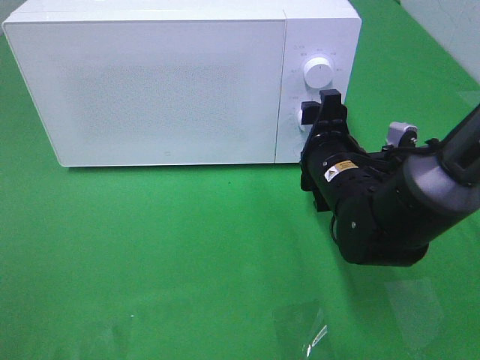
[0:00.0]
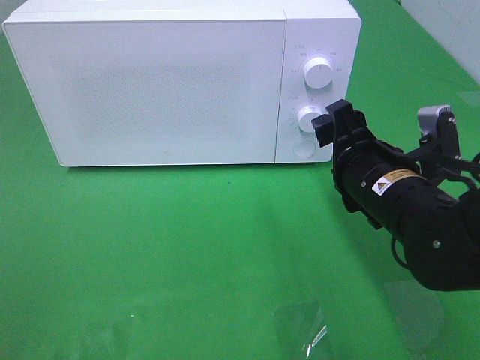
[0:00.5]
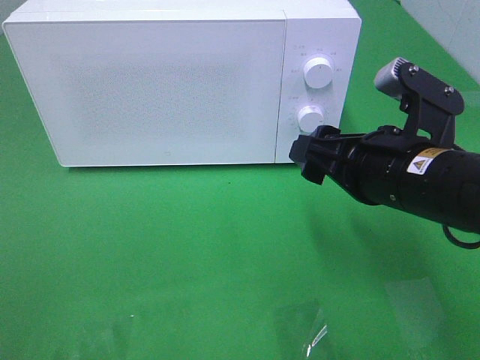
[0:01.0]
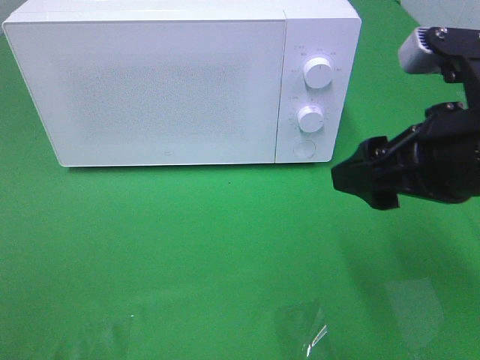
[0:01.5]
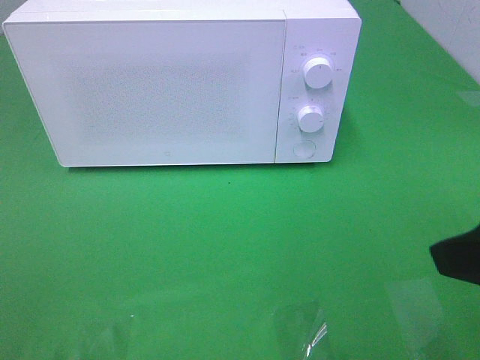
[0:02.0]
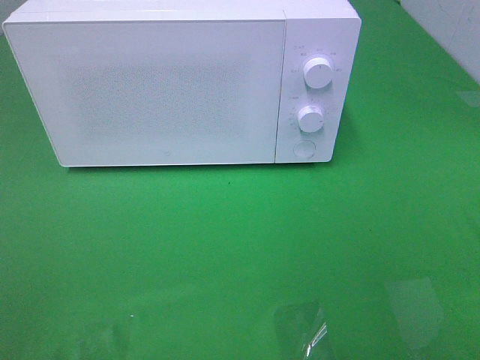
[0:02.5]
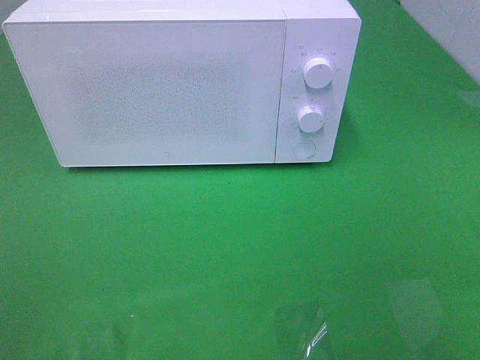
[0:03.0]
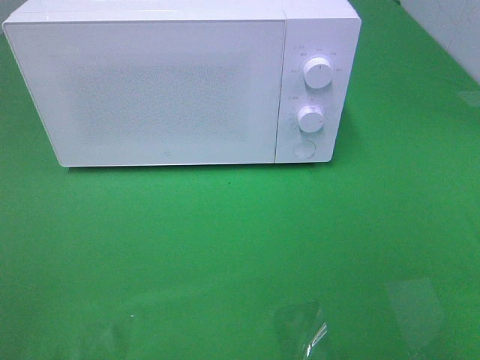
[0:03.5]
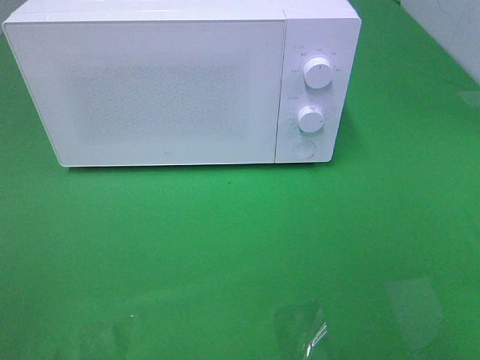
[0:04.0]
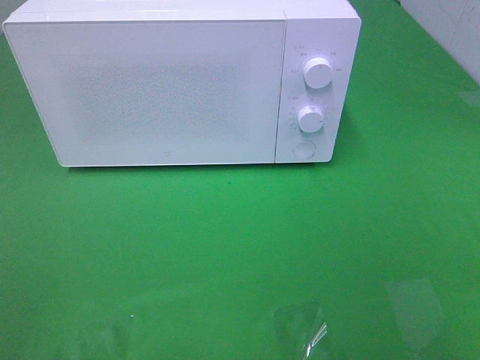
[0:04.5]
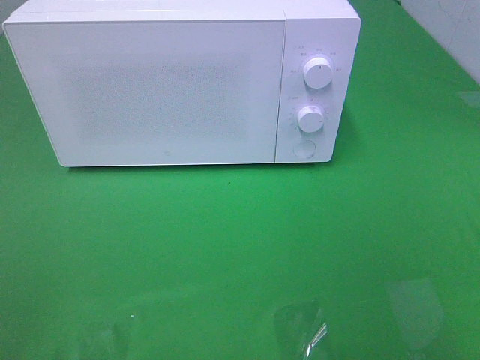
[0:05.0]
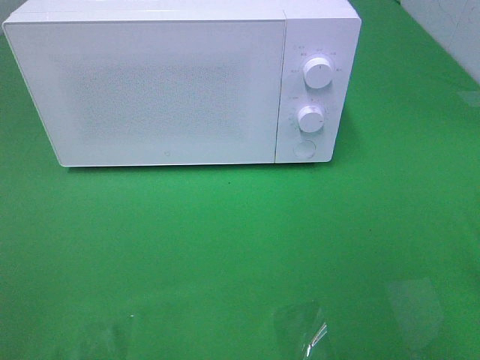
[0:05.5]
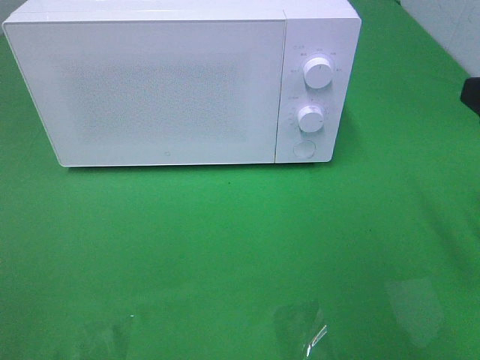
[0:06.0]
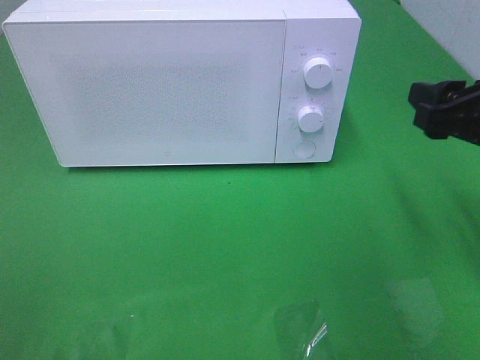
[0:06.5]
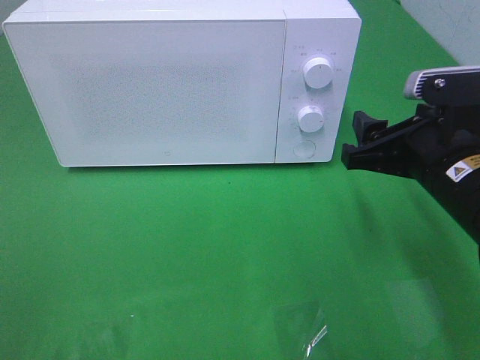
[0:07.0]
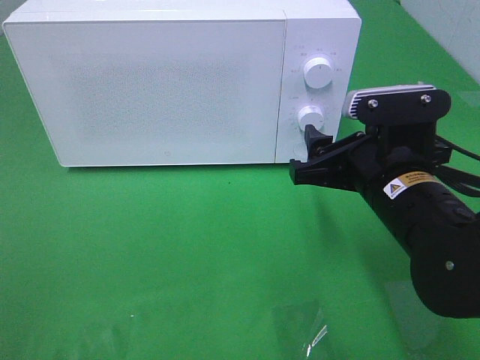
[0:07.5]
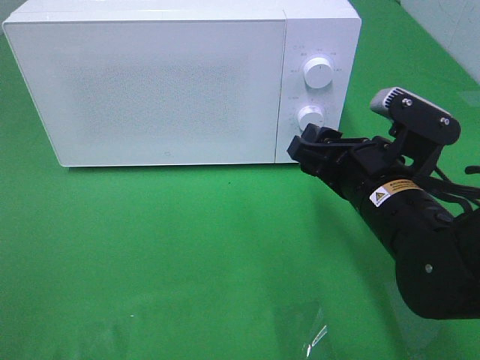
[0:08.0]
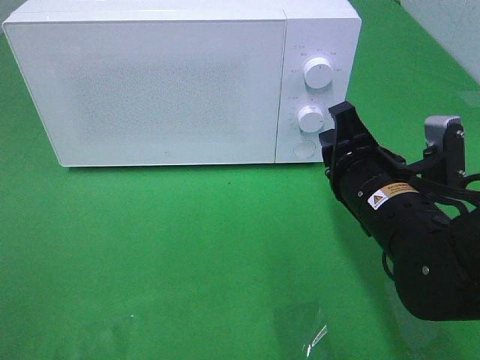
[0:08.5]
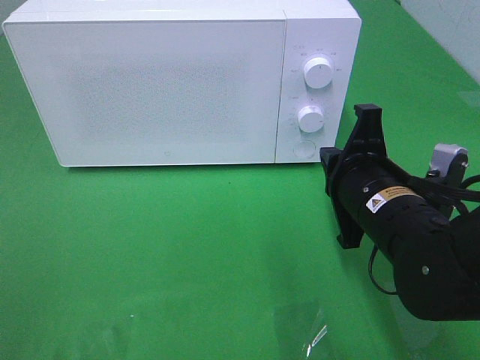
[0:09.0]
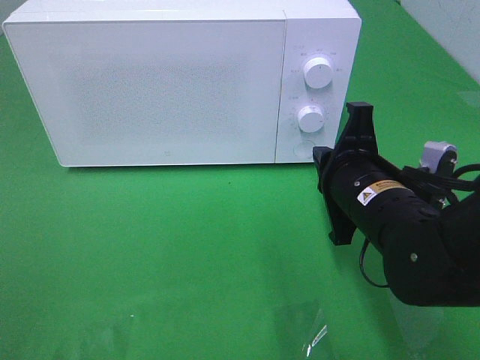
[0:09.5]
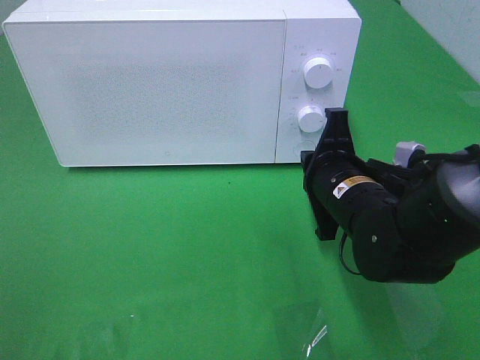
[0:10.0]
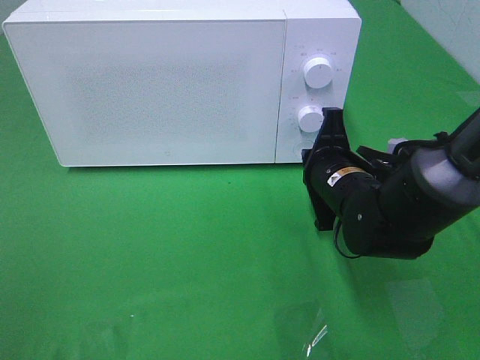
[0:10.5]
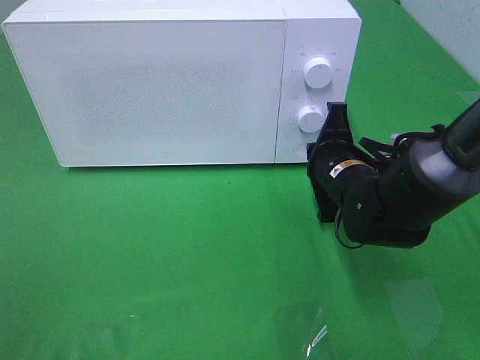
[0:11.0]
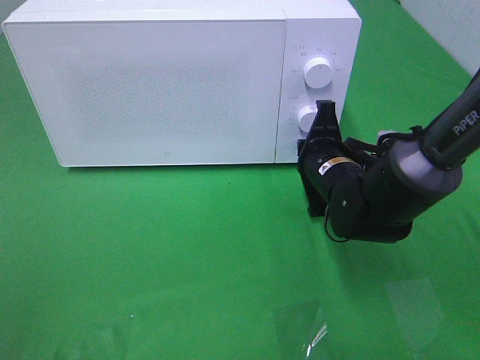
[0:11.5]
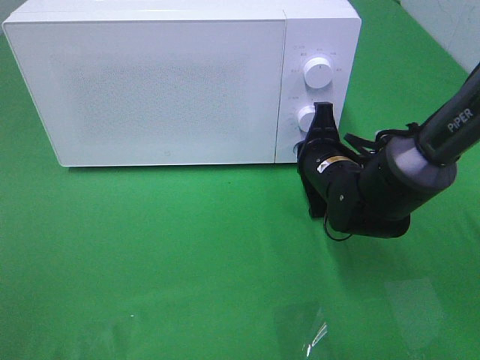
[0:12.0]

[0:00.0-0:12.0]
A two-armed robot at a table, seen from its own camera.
Task of the whole recording: Heat the burger.
Step, 0.0 to 11.5 s: Right hand: press the switch.
0.0 to 2.0 s: The right gripper shifts roughly 25 cm backward, upward and to the right.
2.0 to 4.0 s: The right gripper travels backward and to the right by some 15 cm.
6.0 to 8.0 s: The right gripper goes about 20 cm to the left, downward and forward.
8.0 to 10.0 s: The right gripper shifts by roughly 5 cm, and closes.
10.0 to 12.0 s: The right gripper moves forward, some 5 cm.

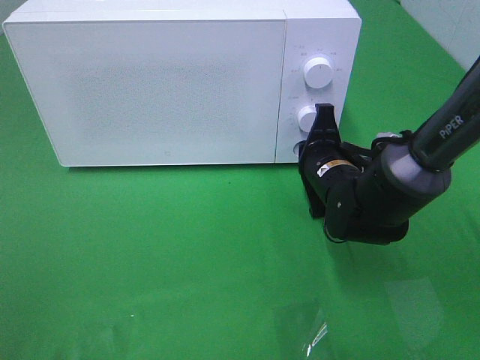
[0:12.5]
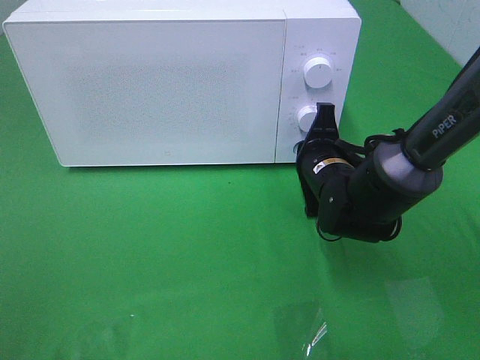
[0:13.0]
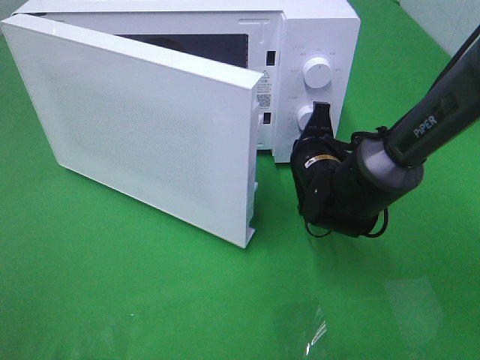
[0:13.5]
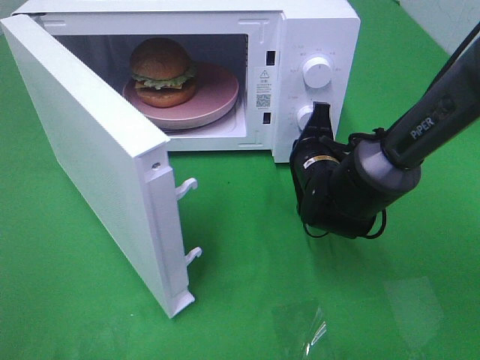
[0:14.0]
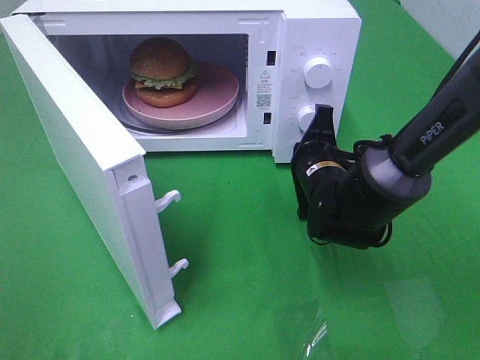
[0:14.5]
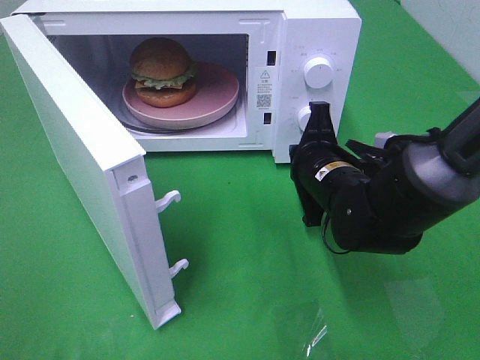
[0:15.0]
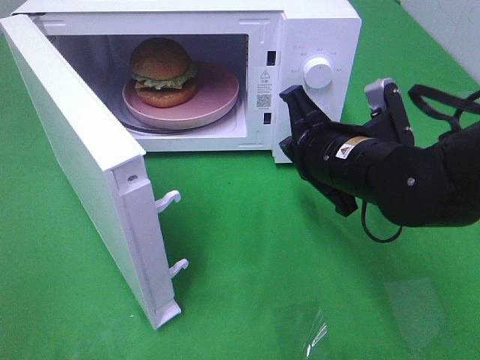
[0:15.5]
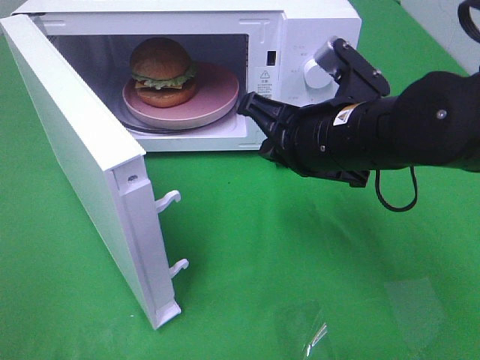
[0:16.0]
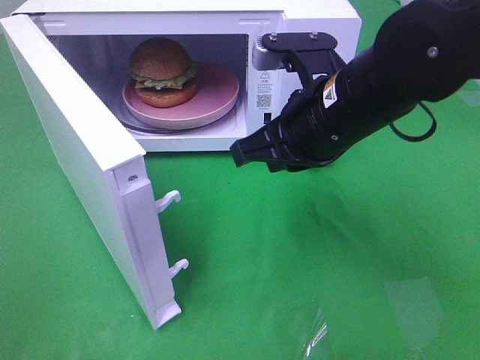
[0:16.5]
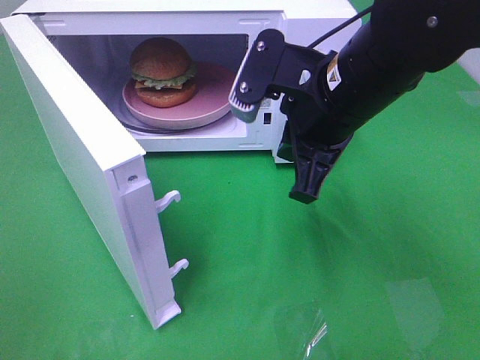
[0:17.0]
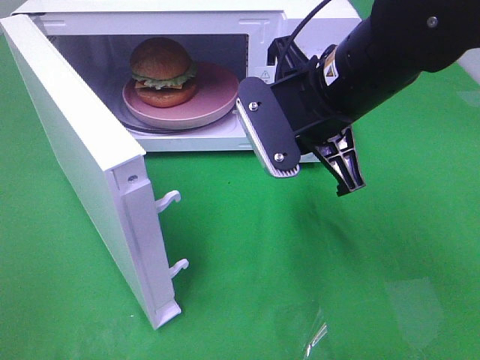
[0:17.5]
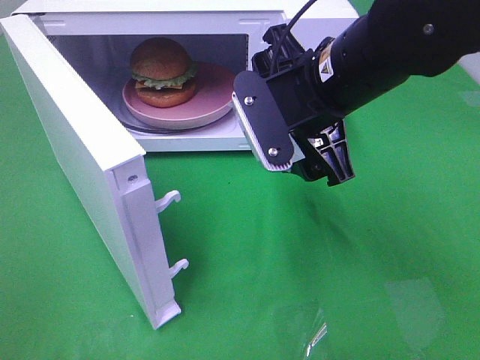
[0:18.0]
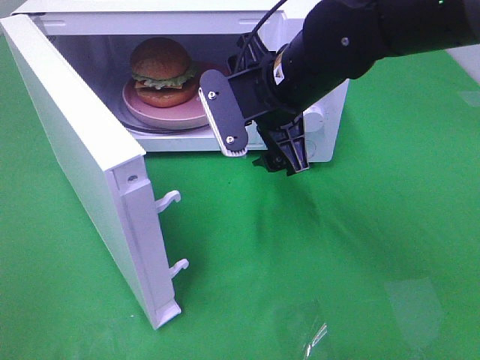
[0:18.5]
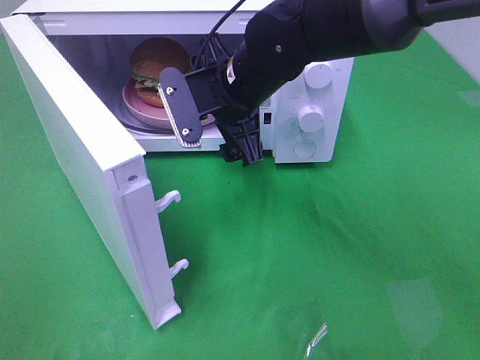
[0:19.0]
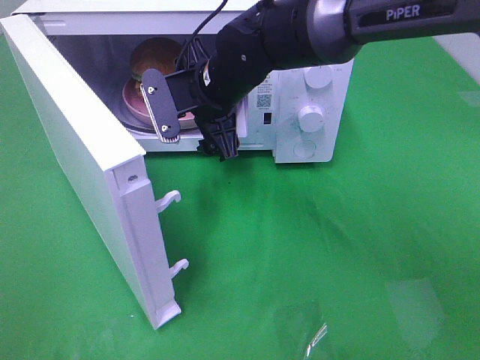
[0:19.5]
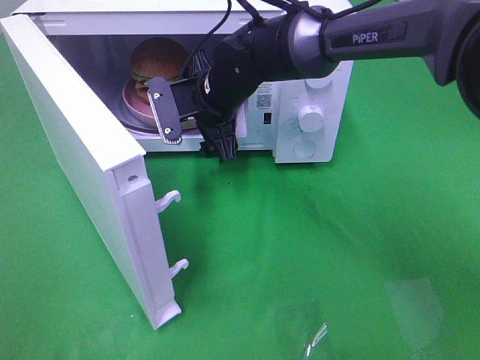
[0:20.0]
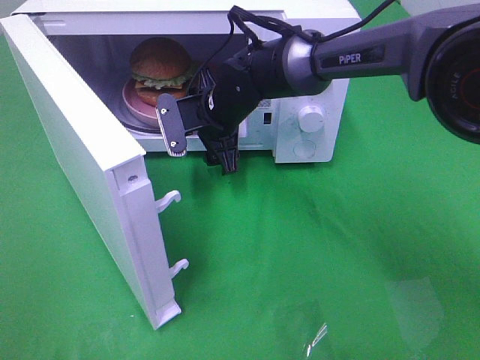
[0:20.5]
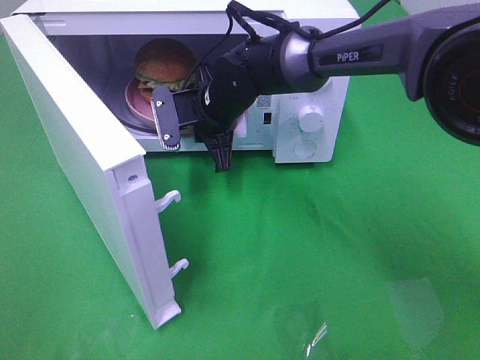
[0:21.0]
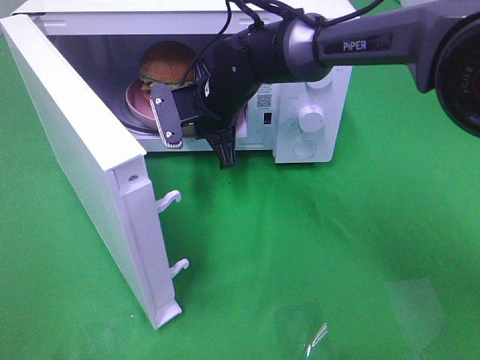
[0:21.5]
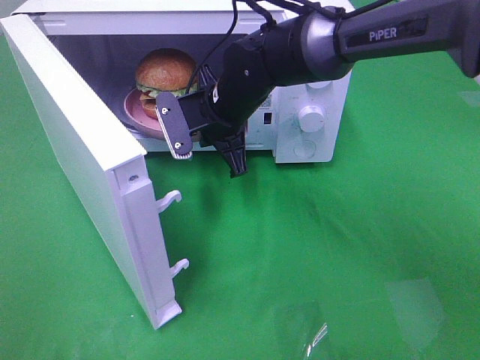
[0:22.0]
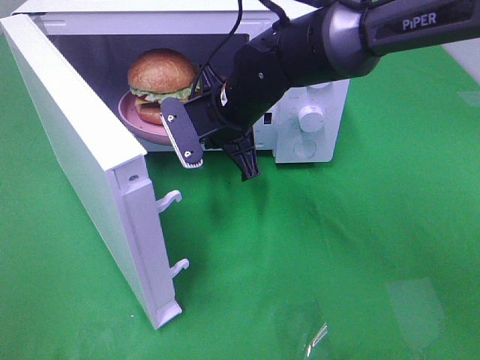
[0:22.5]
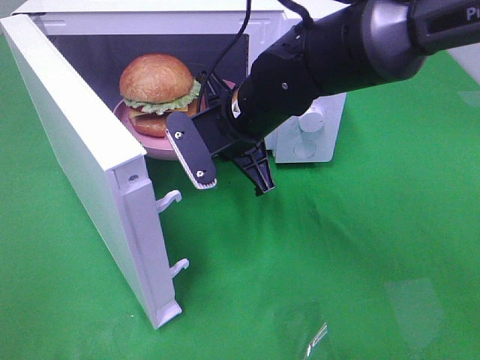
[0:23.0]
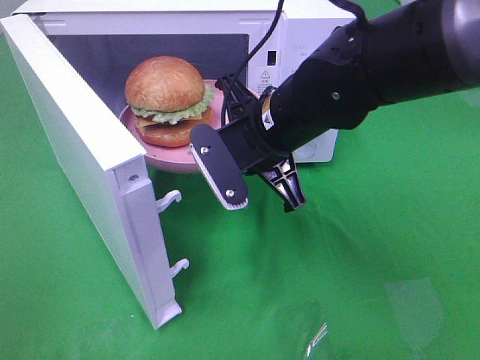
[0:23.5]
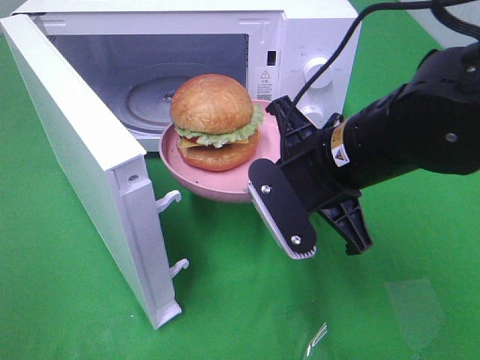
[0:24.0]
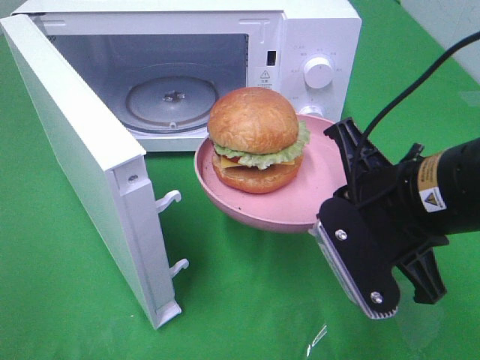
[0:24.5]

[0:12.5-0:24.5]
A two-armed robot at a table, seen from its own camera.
Task of the whole recording: Heat the burger.
Step, 12.5 to 21.0 s: Right hand: grab the plate with the hamburger.
14.5 to 16.5 s: The right gripper is displaced upward and backward by approximately 15 cm.
16.5 to 18.5 s: The right gripper goes some 5 cm forward, and opens.
18.5 to 20.5 s: The right gripper moves forward, downward and to the left, some 15 cm.
20.5 to 22.5 s: The right gripper shifts some 5 cm backward, and closes up.
22.5 to 24.5 s: The right gripper moves backward and to the right, about 25 cm.

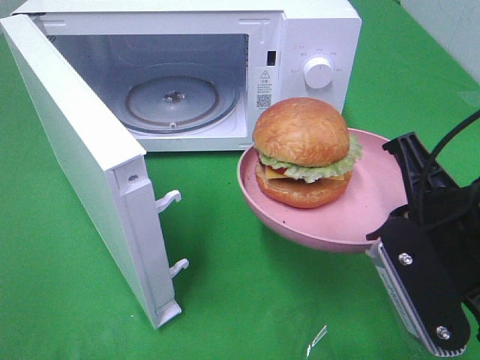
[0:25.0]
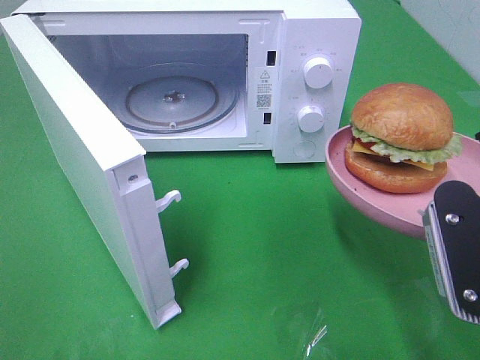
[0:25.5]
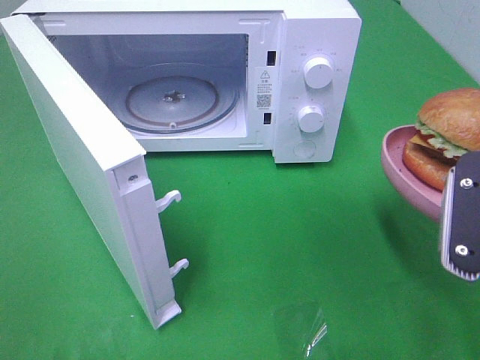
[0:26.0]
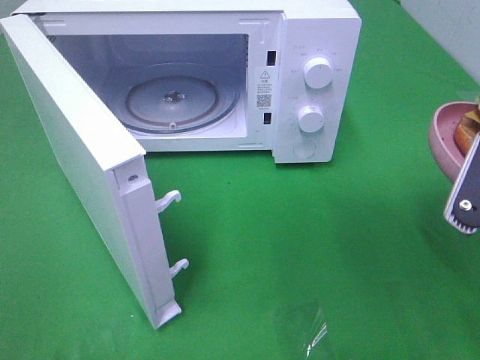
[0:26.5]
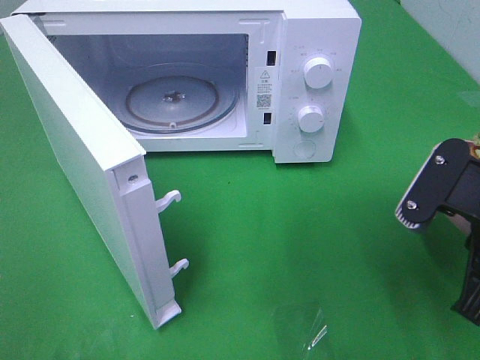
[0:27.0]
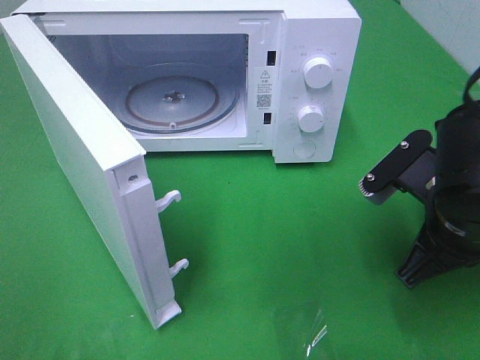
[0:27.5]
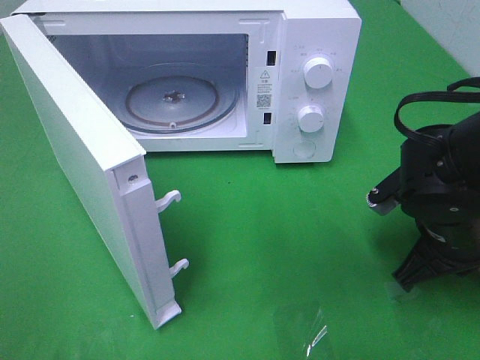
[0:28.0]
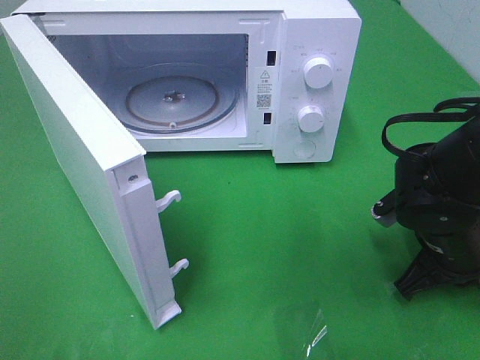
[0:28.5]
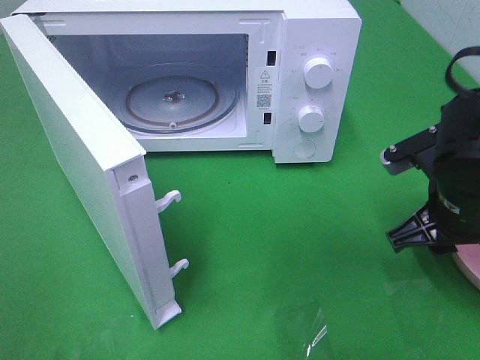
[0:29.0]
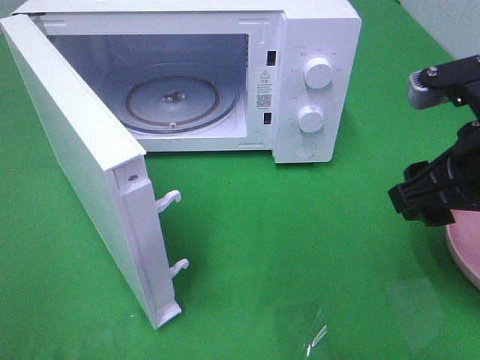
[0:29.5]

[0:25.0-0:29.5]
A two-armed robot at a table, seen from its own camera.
Task of the whole recording: Heat the burger.
Step, 25.0 to 28.5 s: Right hand: place the plate on the table.
27.0 to 29.5 s: The right gripper travels downward and back again, some 10 cm each way, and opens its fingers.
